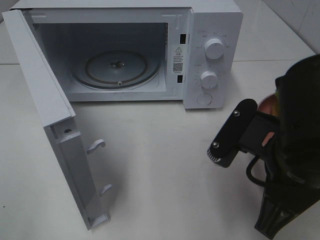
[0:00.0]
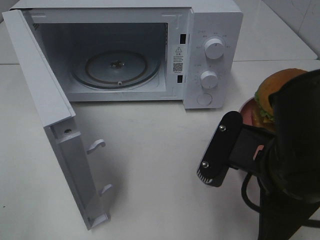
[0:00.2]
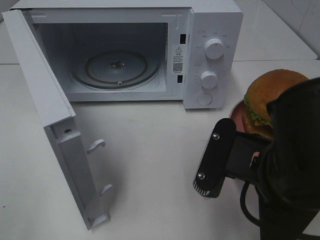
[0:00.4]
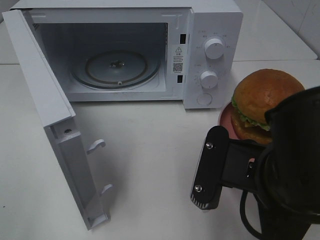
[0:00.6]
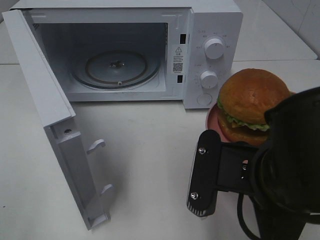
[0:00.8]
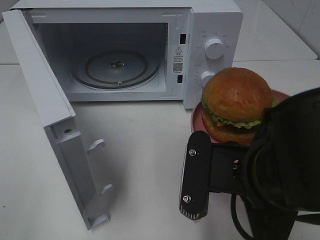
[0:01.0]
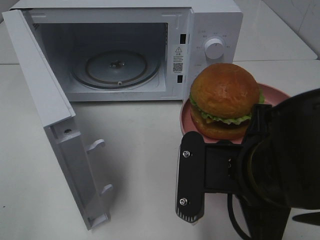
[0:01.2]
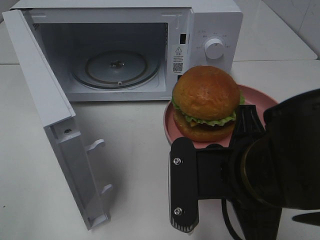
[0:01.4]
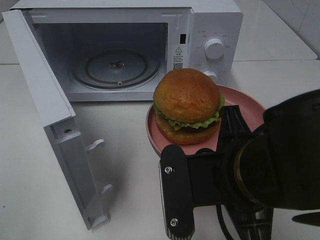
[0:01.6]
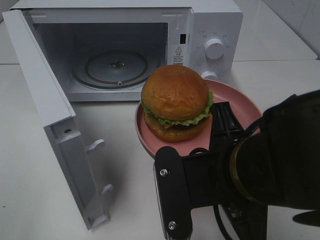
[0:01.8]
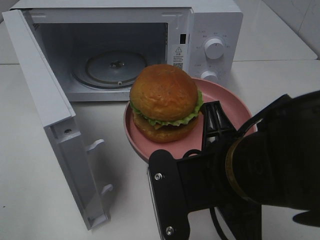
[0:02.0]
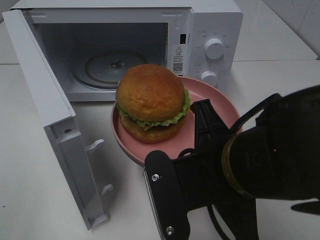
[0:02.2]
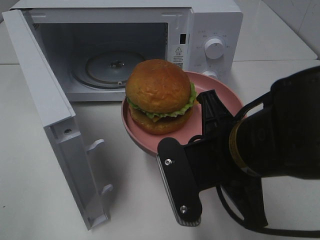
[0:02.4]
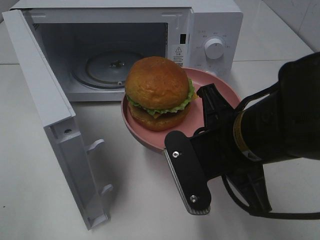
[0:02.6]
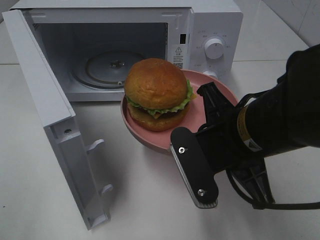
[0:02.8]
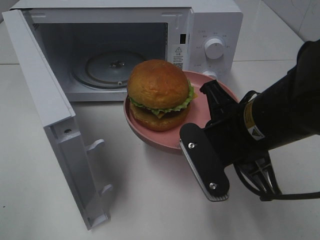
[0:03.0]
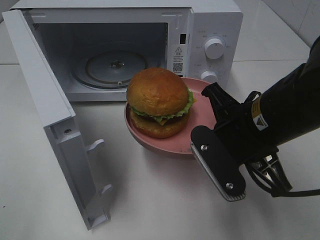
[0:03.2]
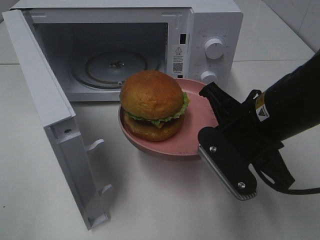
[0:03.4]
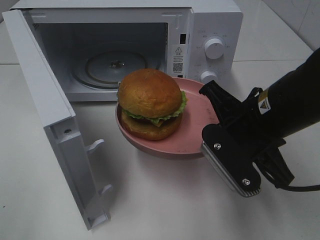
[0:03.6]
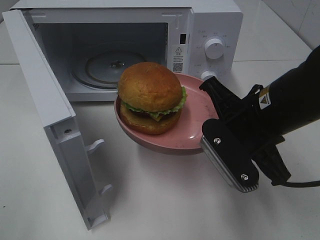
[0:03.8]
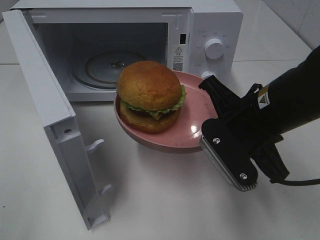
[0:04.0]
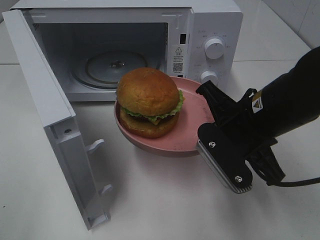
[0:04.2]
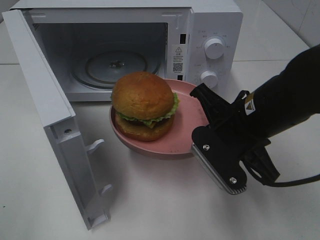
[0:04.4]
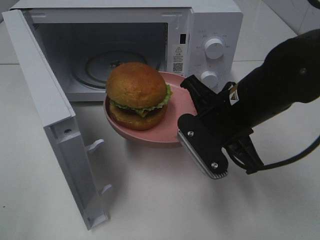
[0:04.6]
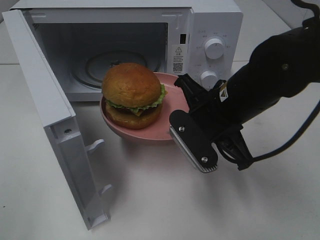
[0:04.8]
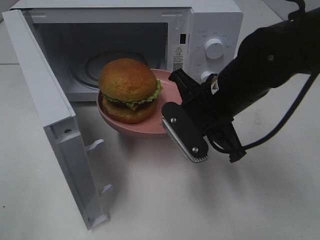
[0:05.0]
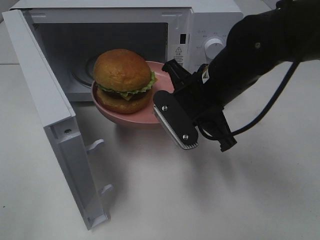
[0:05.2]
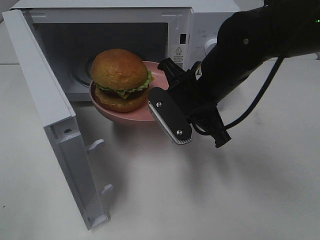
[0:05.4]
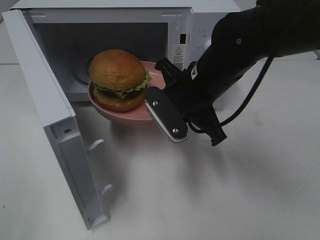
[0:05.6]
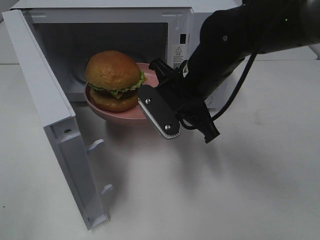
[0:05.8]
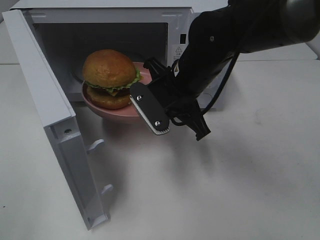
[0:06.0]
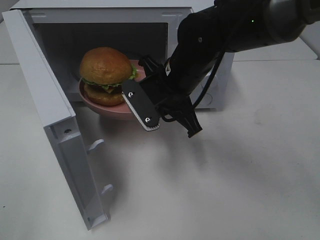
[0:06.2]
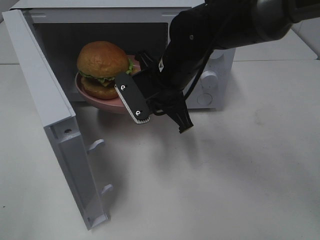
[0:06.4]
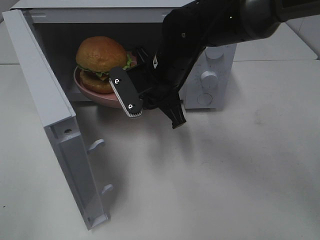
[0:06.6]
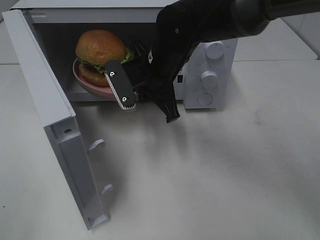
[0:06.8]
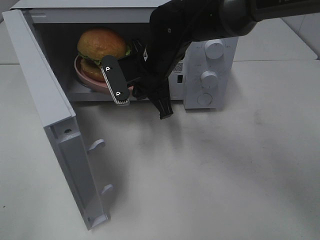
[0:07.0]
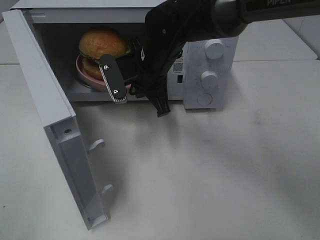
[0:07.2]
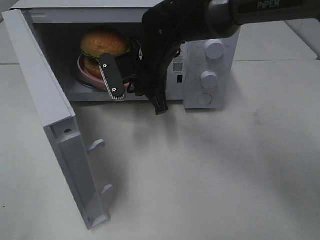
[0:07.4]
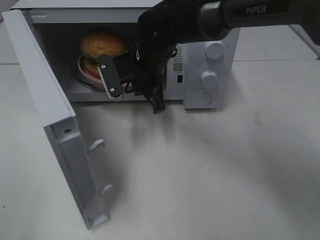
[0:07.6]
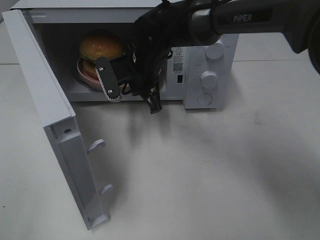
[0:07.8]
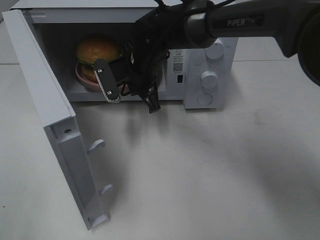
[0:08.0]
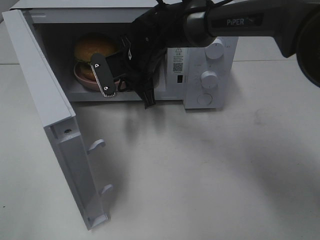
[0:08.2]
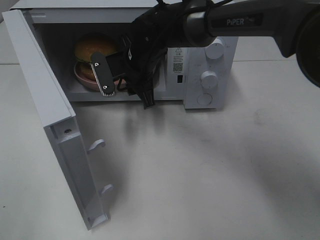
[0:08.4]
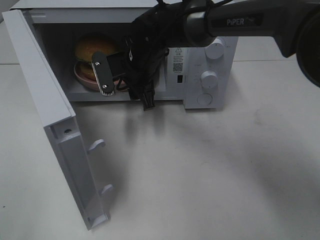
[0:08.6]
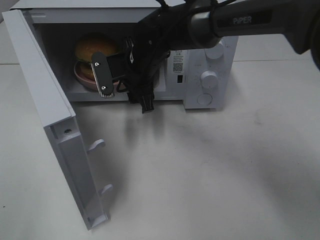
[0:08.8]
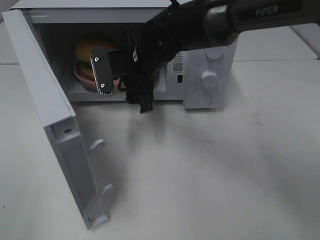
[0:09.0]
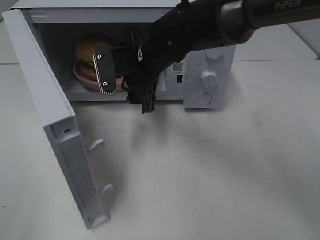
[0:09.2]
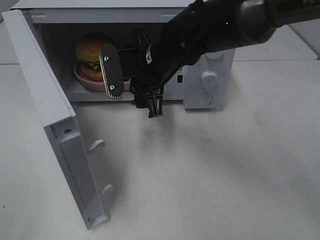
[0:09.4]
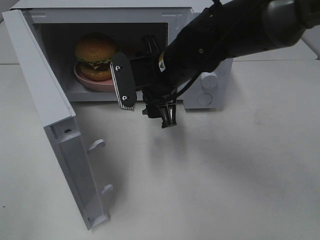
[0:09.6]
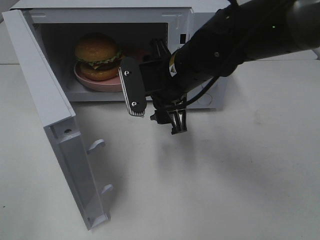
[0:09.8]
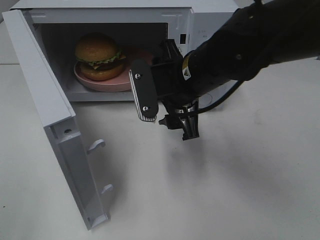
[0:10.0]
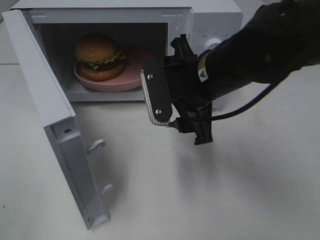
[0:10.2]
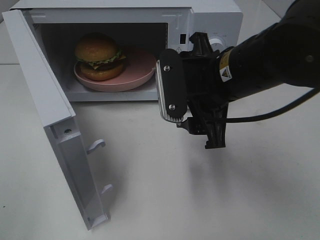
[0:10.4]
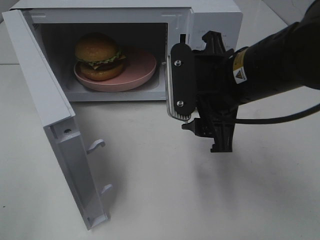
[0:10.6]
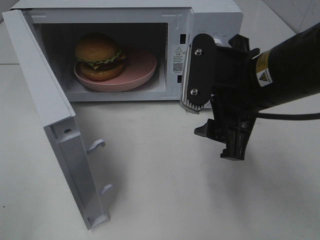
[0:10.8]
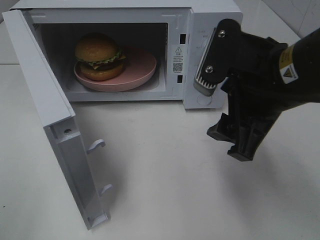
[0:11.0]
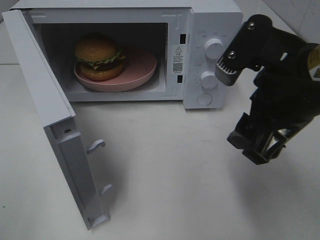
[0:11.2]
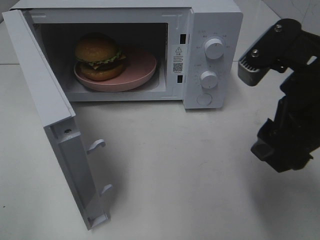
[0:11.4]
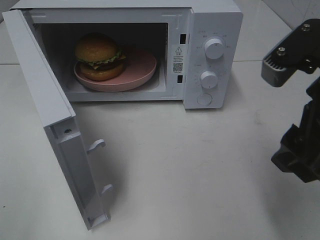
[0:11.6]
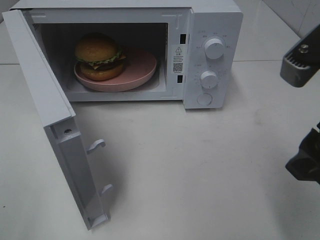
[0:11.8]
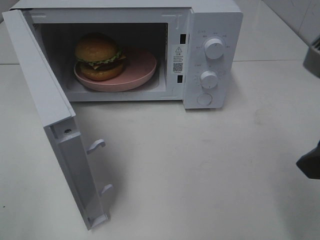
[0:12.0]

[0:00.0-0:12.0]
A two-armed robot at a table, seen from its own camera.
Task of the whole recording: Heat the burger.
Step, 0:00.0 to 0:09.0: Right hand: place the plate in the microwave.
0:00.0 to 0:01.6: The right gripper shifts by some 5 cm.
0:01.6 to 0:03.0: The right gripper heads forward, covering about 5 cm.
0:03.0 to 0:04.4: There are only small adjustments of the grippers.
0:04.4 to 0:06.0: The right gripper moves forward and to the left, some 10 cm.
0:06.0 to 0:07.6: The right gripper is displaced forward and to the left by approximately 10 cm.
0:07.6 to 0:09.0: The right gripper opens its fingers.
0:09.0 to 0:10.4: The right gripper shifts some 15 cm backward and to the right.
0:10.4 to 0:12.0: The right gripper travels backward, to the right and upward by roughly 20 cm.

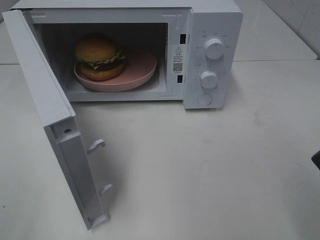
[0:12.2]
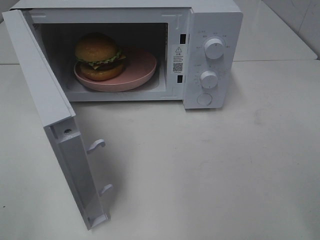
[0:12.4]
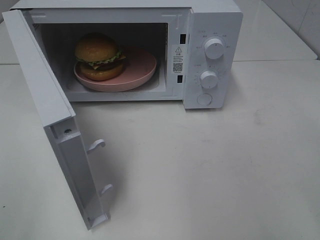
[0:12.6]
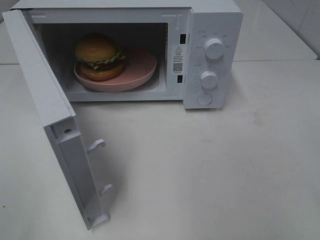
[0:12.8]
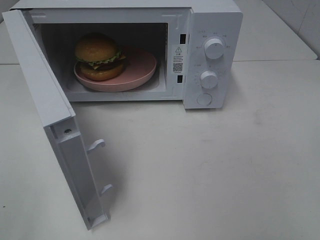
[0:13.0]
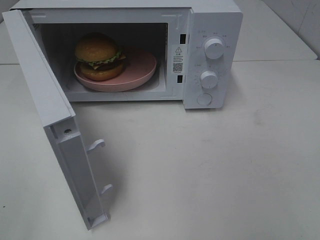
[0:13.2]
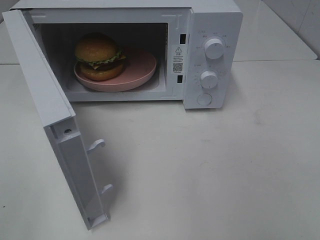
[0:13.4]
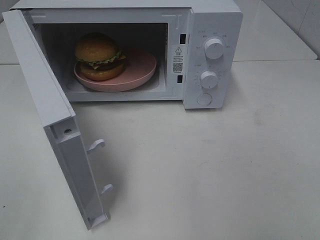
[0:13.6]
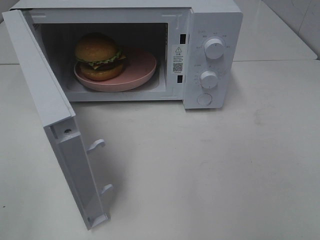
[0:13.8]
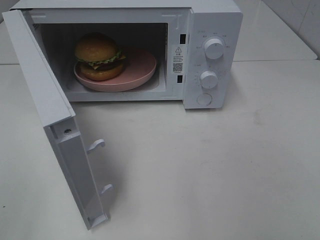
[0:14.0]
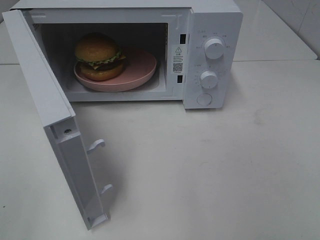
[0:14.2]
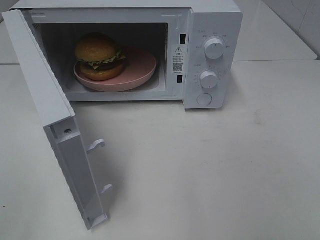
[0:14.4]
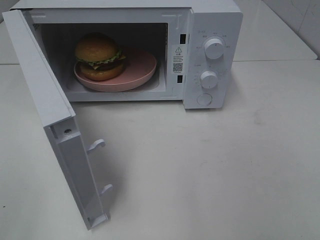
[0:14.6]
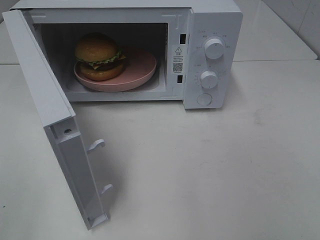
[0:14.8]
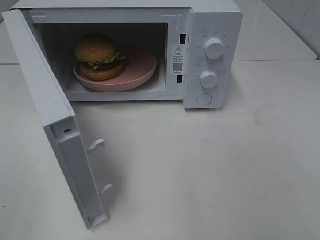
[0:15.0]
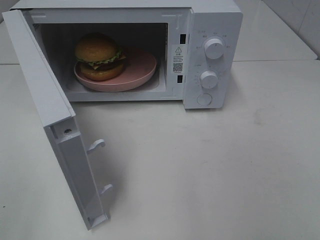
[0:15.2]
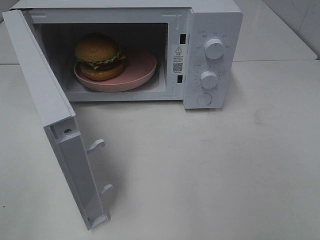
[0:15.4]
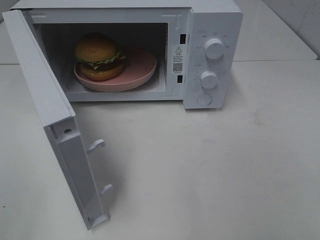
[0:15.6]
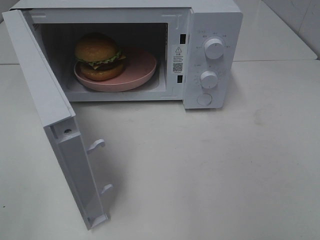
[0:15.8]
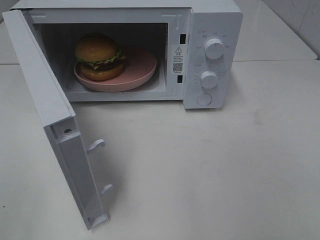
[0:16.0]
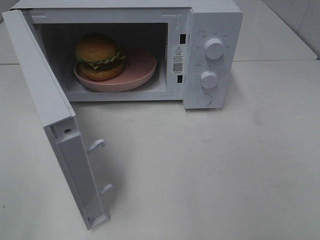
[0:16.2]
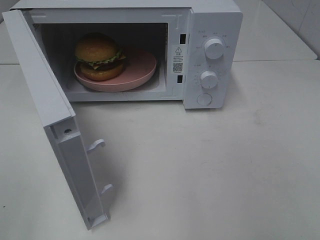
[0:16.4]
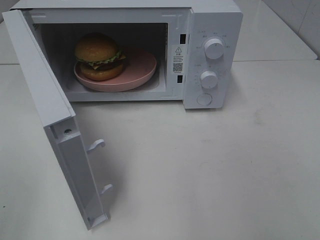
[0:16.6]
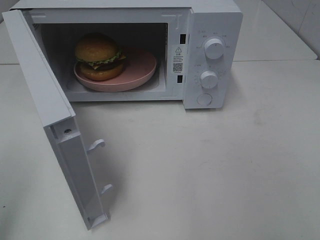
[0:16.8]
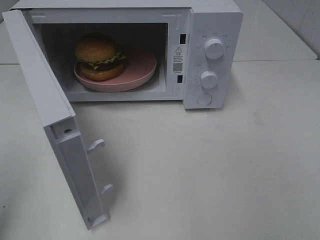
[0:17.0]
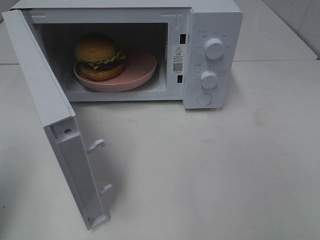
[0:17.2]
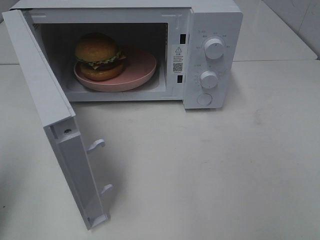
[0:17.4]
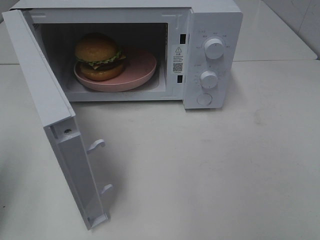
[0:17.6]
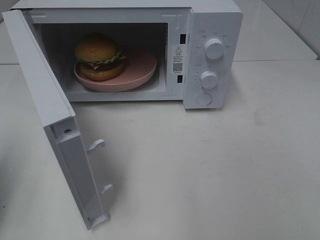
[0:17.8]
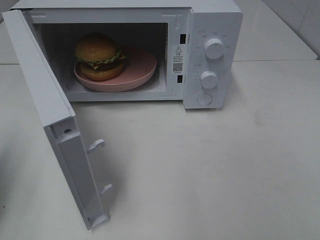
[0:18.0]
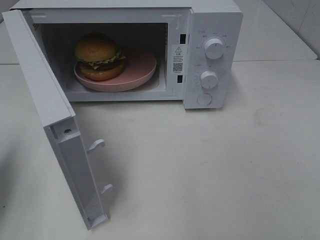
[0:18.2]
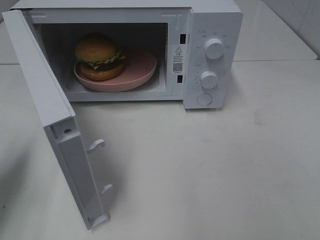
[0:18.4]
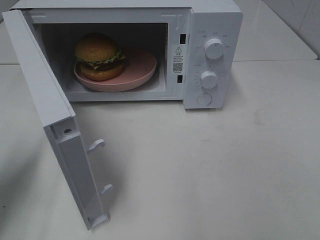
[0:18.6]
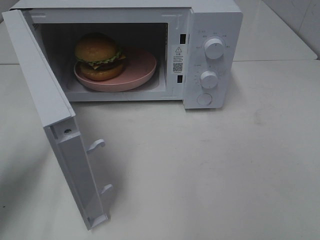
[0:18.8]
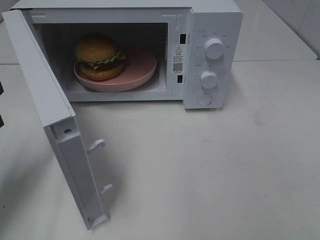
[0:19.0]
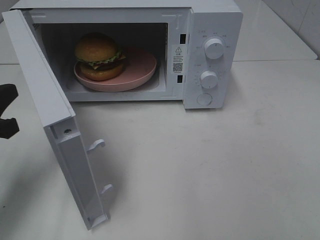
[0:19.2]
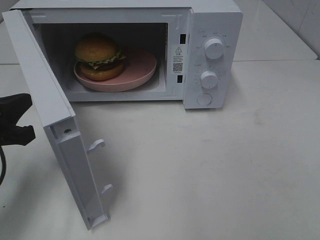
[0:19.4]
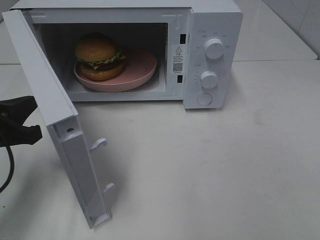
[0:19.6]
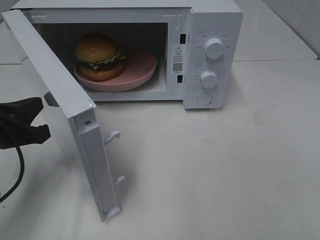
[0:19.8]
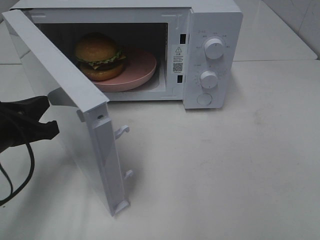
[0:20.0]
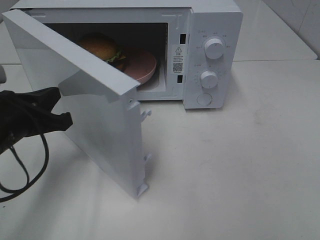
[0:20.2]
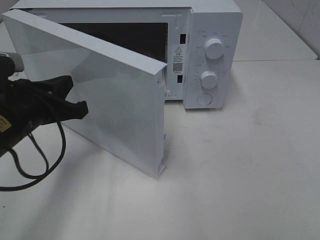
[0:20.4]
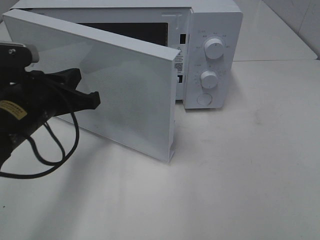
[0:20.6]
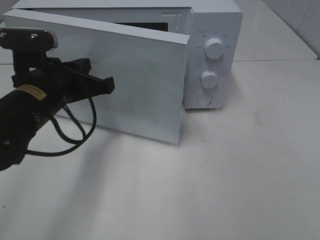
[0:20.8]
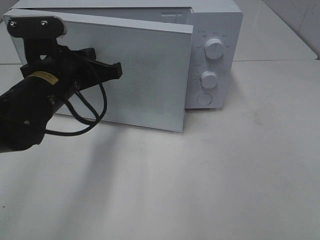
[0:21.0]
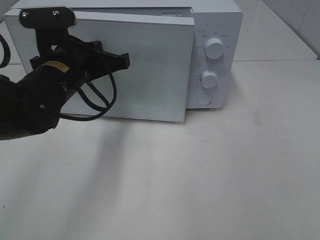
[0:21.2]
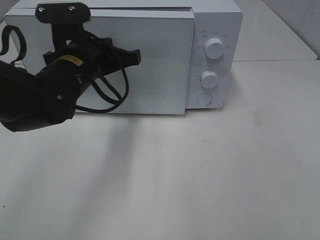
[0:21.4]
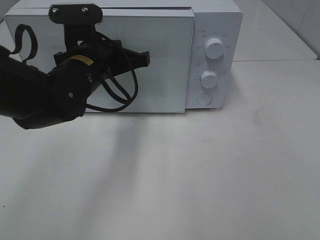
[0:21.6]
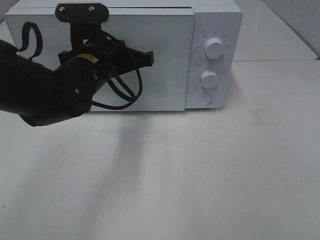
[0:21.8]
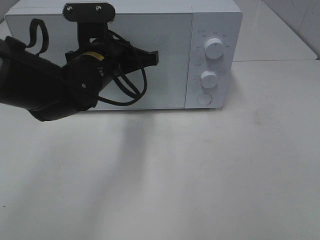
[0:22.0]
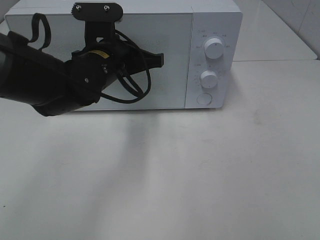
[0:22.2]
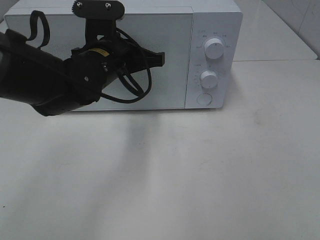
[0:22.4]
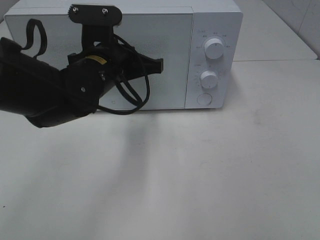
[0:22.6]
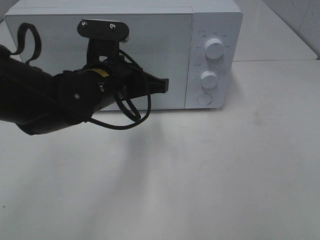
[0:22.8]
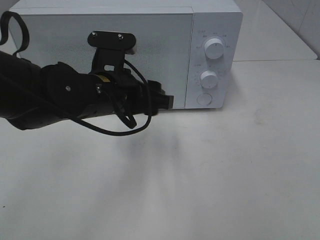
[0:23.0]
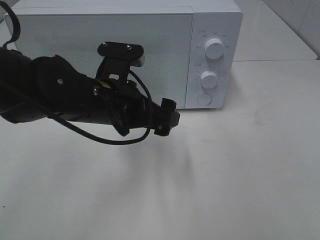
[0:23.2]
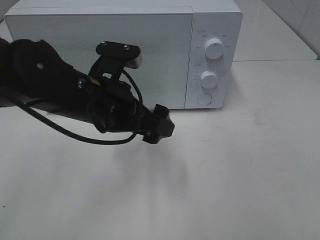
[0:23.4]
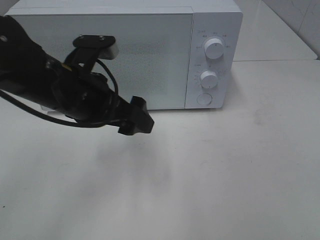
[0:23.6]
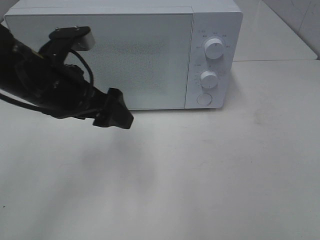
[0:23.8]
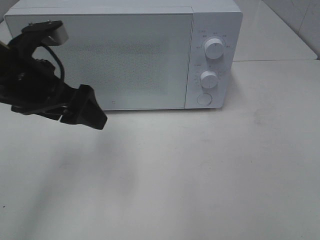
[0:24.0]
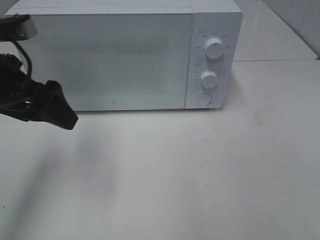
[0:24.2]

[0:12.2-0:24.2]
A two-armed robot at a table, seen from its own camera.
Task of the whole recording: Heat the burger.
Step, 0:12.2 to 0:23.2: Left hand: close the microwave door.
0:12.2 to 0:13.8: The right gripper moves backward and to the right, about 15 cm.
0:13.8 to 0:15.2: Both grippers stay put.
0:16.6 to 0:18.2: The left gripper moves forward and downward, some 15 cm, and closes up.
0:18.2 to 0:19.8: The left gripper travels to the right and downward by about 10 cm.
0:19.8 to 0:21.2: The left gripper travels to the right and forward by some 15 cm.
0:21.2 to 0:22.6: The grippers move only a little.
0:22.6 to 0:24.2: The left gripper travels to the left, upward and backward by roughly 15 cm, and opens its fingers.
